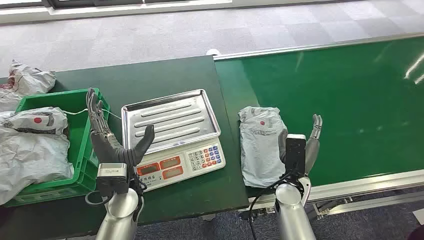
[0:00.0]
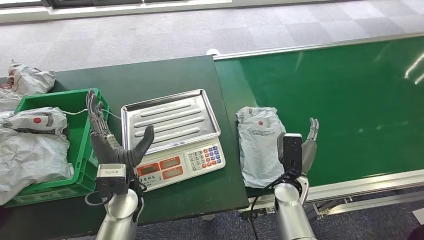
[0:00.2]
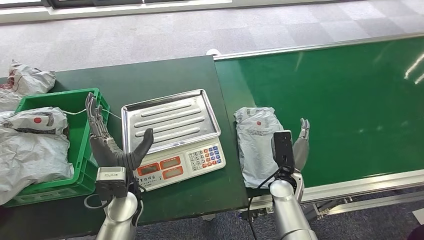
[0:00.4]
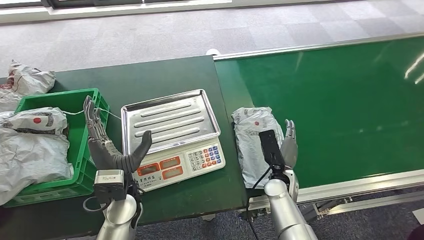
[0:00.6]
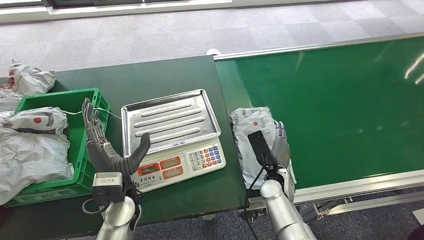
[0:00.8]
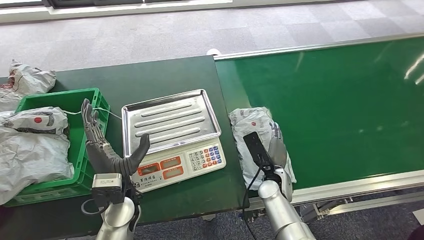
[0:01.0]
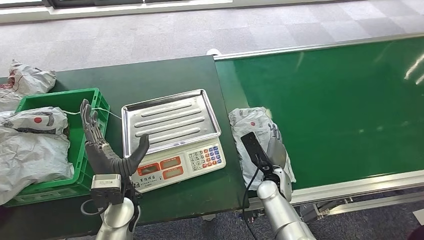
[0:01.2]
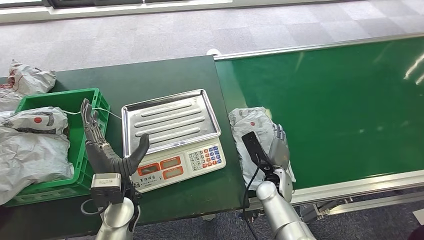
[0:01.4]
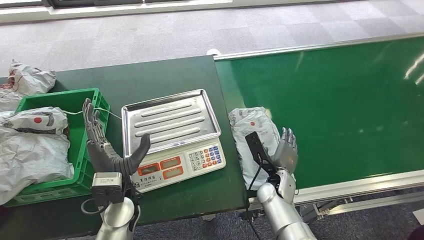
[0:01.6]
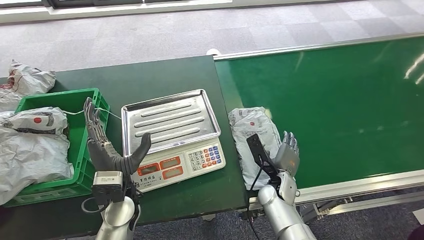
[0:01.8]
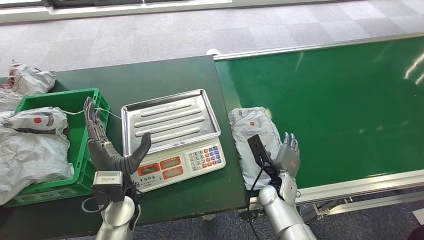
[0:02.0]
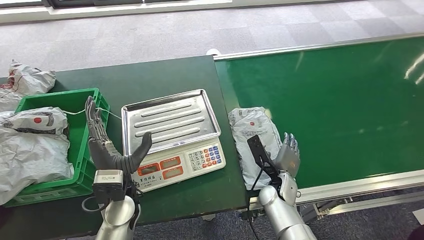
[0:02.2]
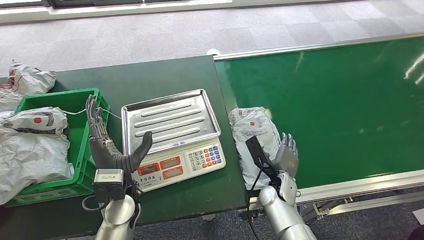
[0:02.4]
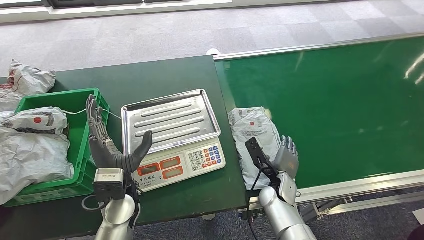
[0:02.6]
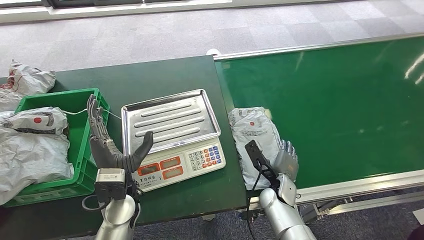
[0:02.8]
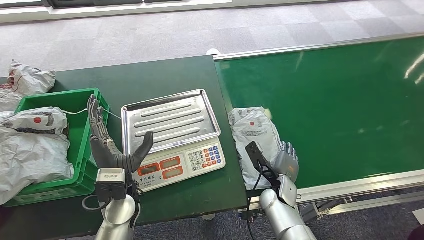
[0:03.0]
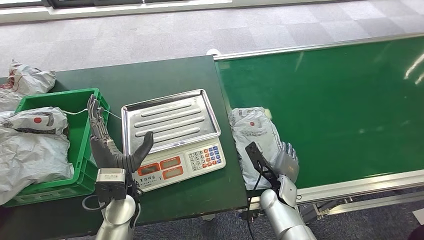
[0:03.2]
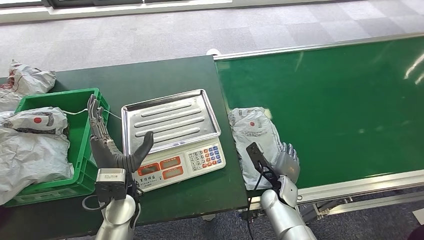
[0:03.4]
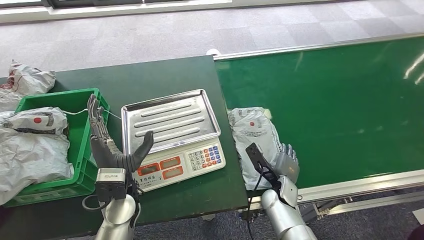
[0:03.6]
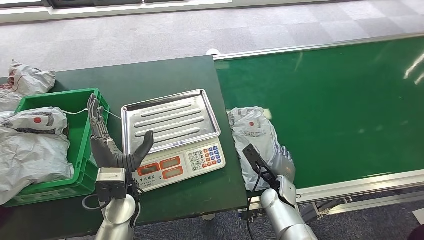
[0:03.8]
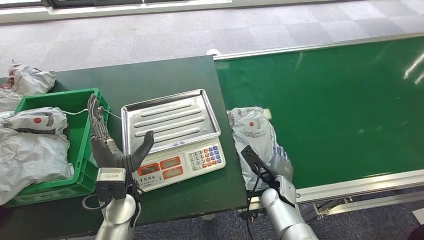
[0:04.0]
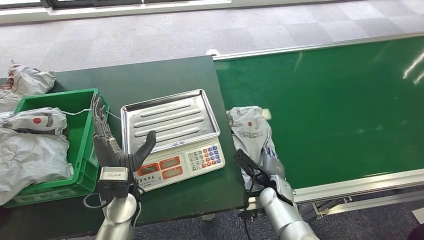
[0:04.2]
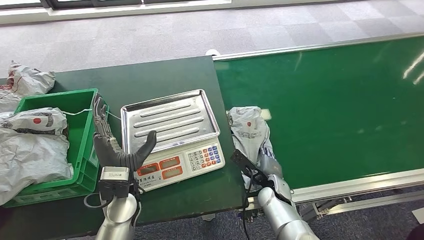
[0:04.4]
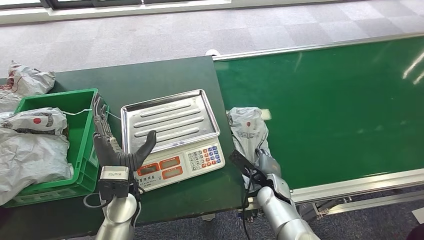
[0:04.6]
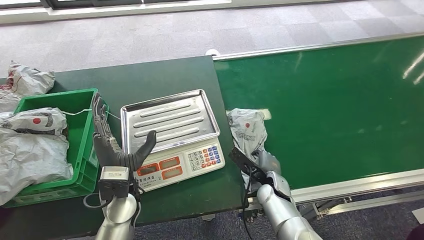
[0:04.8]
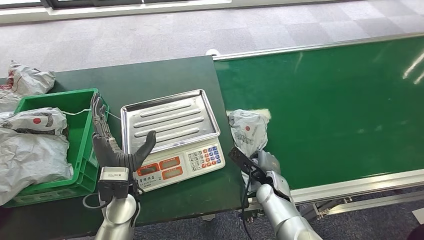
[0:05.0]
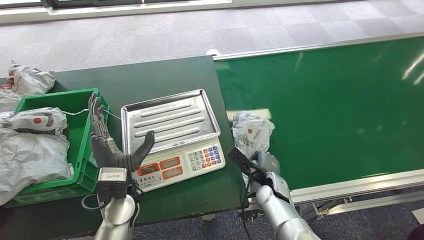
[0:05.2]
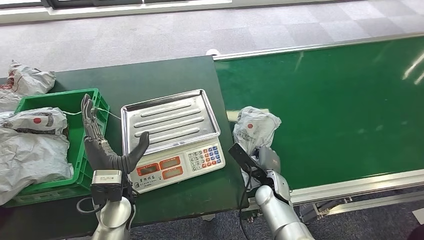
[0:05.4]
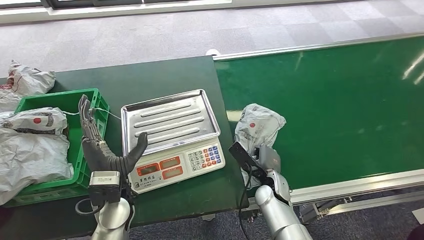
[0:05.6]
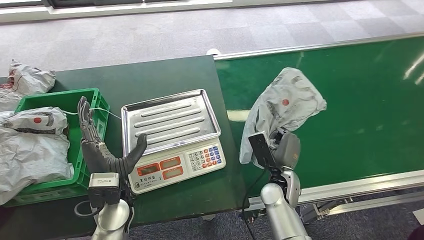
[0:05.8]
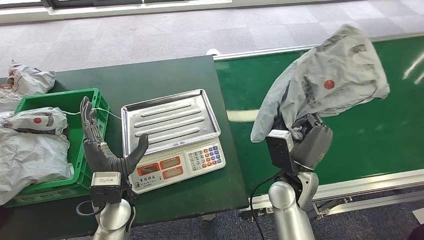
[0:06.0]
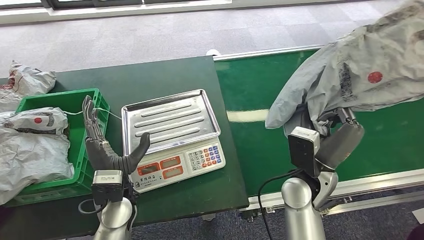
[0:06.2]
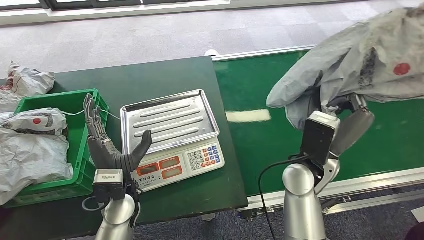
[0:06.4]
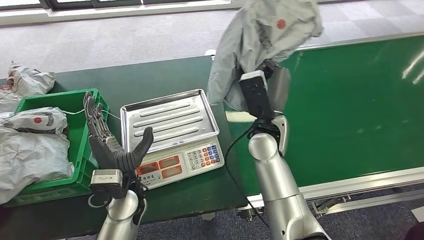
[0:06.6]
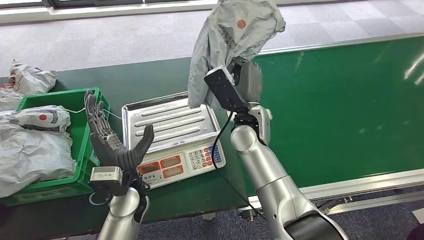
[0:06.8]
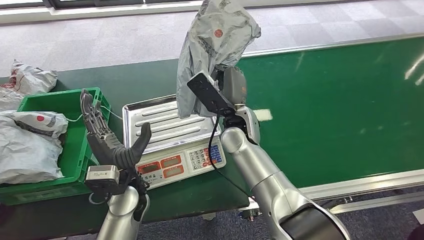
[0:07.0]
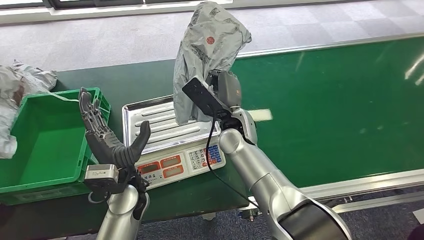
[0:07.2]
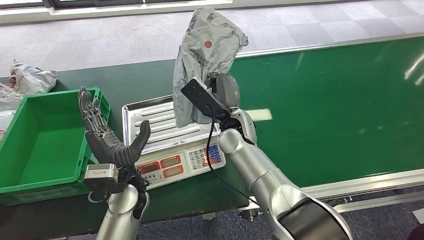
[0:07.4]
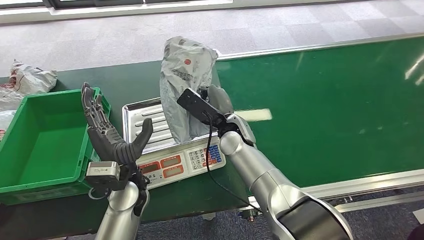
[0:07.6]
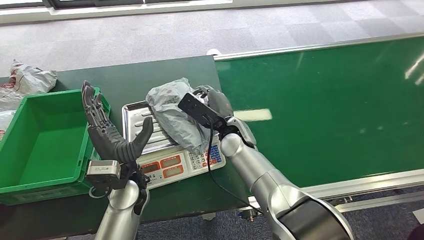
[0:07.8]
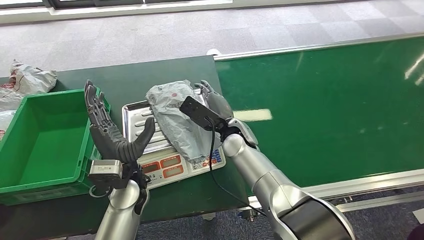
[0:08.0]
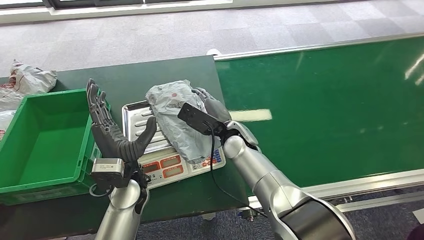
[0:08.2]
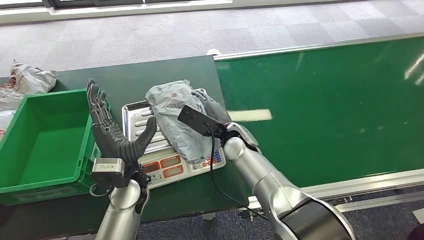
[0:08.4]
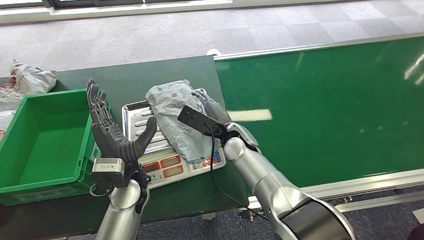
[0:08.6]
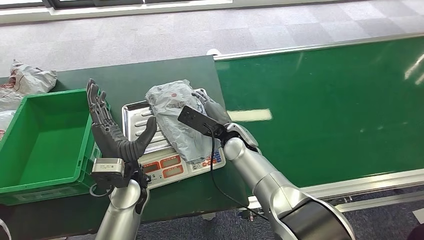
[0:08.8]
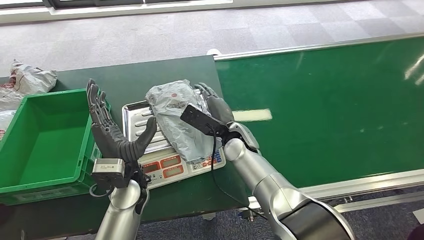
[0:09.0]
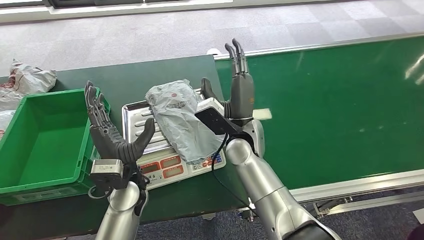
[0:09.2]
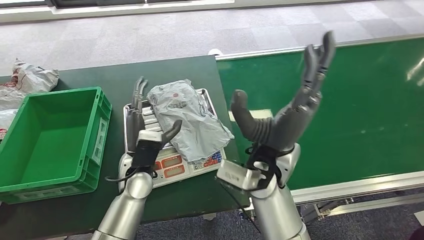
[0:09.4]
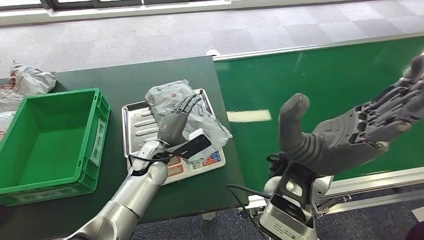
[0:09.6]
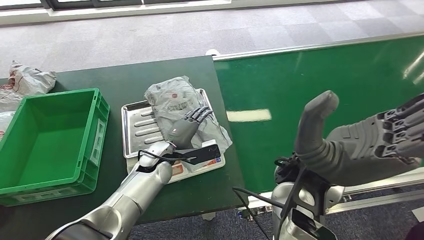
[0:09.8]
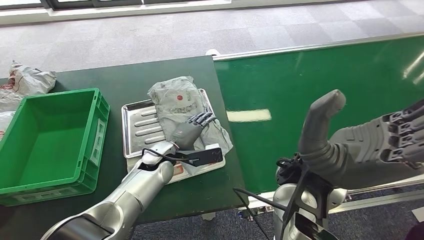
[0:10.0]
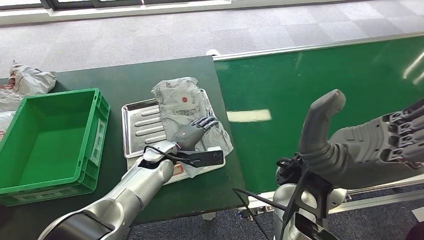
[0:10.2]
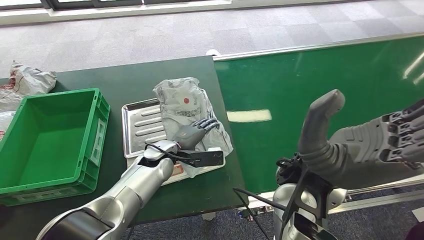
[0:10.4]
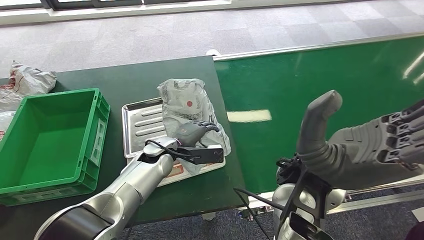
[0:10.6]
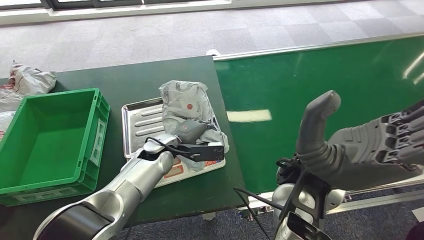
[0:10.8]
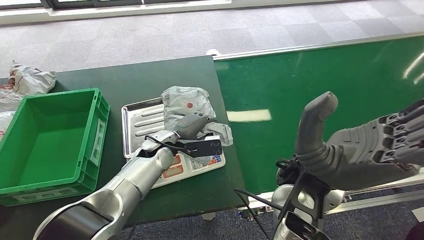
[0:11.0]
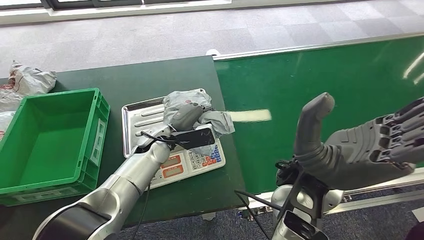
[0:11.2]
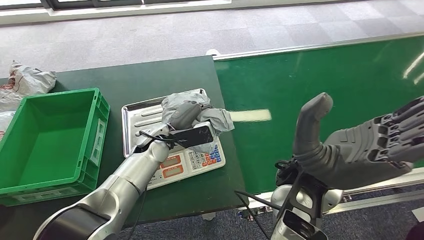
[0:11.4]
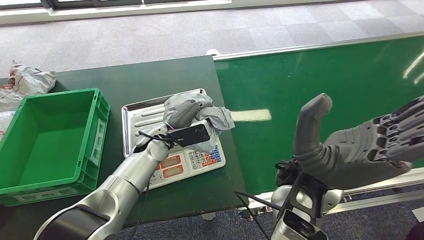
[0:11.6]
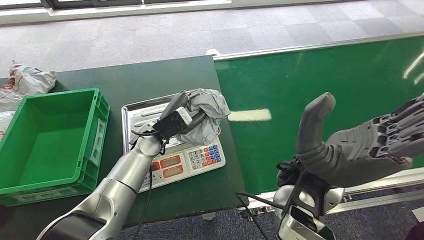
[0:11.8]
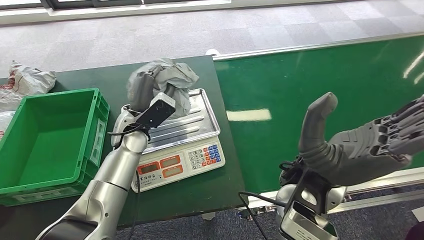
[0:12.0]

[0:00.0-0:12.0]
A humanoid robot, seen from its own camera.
Step, 0:00.0 to 0:06.8: Pick up the package from the conveyor belt.
Step, 0:07.0 to 0:09.2: Place the package onto the inbound machine.
Step, 0:09.6 to 0:12.0: Pick up the package from the inbound machine.
0:01.6 to 0:03.0: The hands make only small movements.
0:04.4 to 0:06.0: The right hand heads upward, covering roughly 15 cm.
0:07.6 to 0:09.0: The hands move only a little.
0:10.4 to 0:12.0: The left hand goes roughly 10 cm upward.

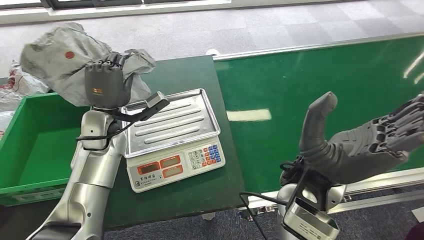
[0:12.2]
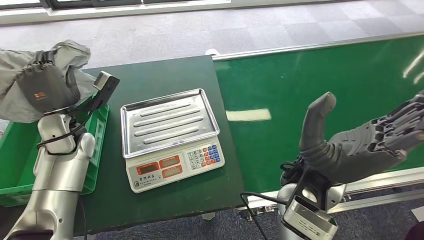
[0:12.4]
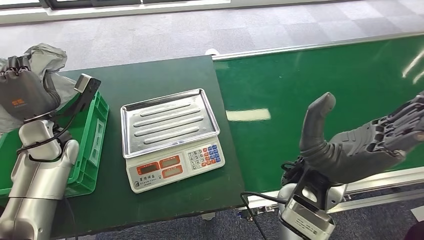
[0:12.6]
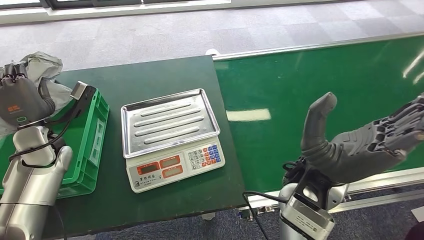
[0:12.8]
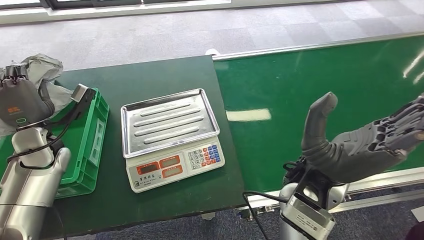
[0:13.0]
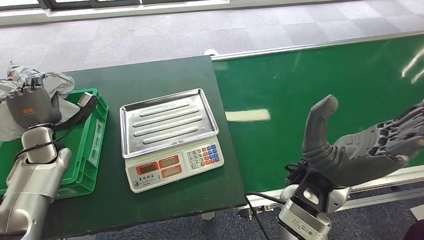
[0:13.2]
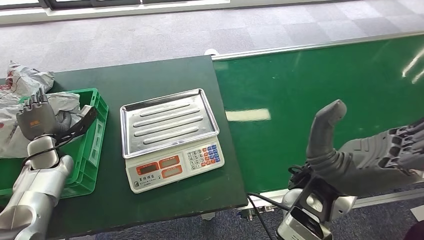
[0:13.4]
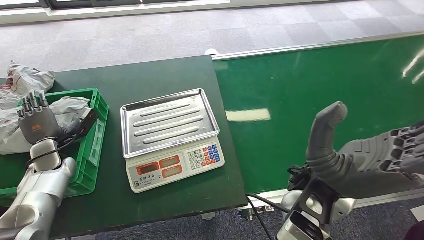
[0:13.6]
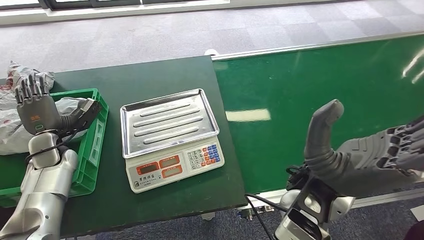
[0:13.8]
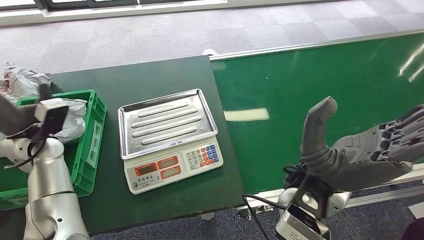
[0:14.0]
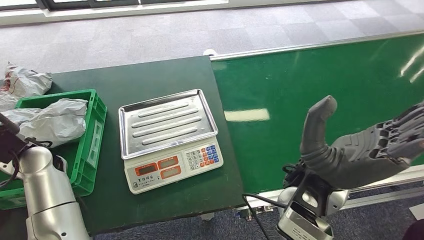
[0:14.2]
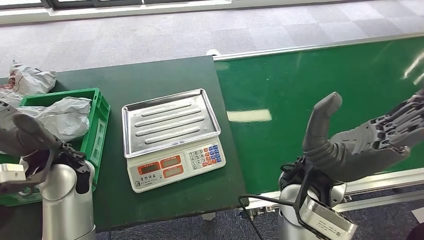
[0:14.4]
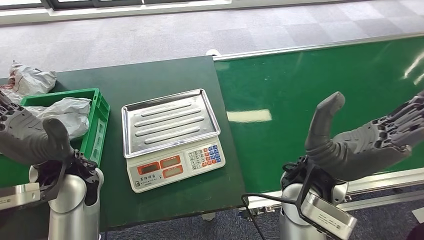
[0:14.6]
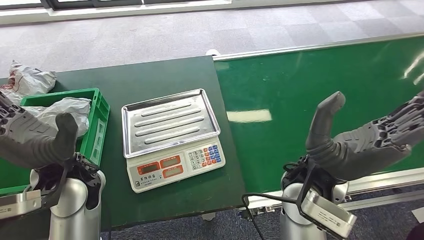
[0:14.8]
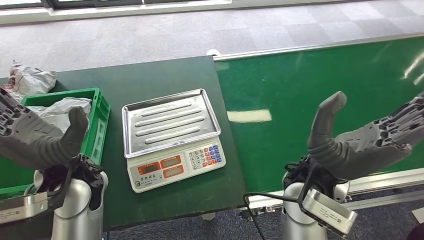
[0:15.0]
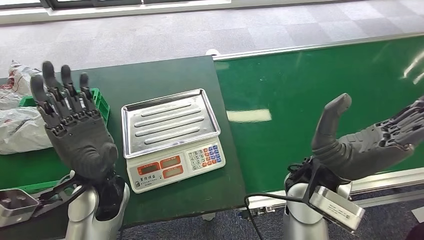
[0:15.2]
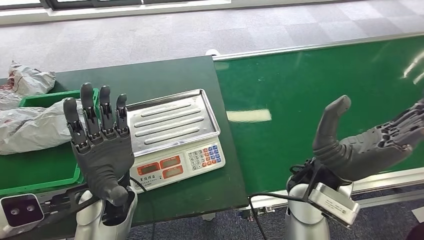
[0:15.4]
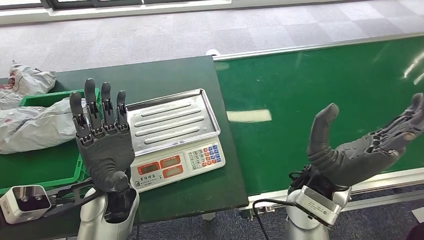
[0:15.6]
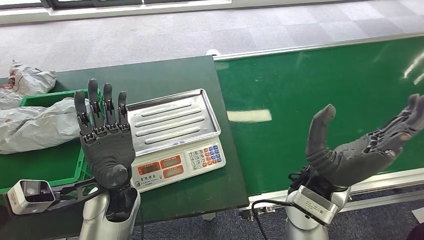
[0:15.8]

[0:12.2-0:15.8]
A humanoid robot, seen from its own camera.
Step, 0:12.2 to 0:15.8: Place the package into the parcel locker.

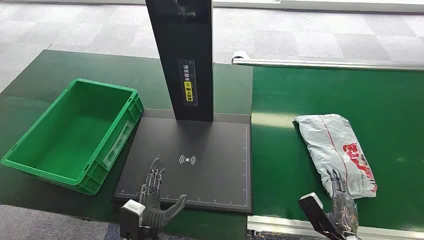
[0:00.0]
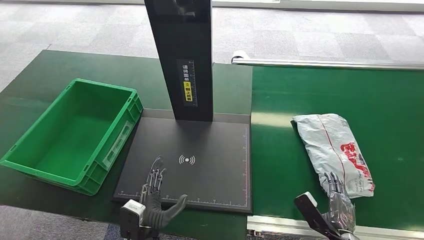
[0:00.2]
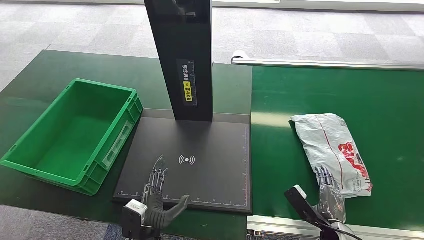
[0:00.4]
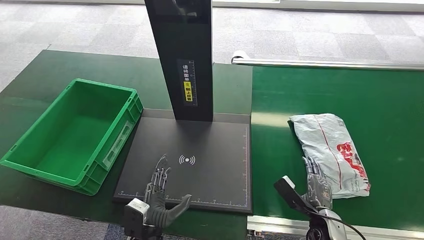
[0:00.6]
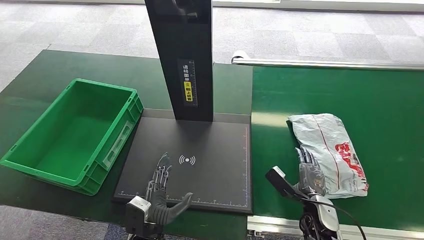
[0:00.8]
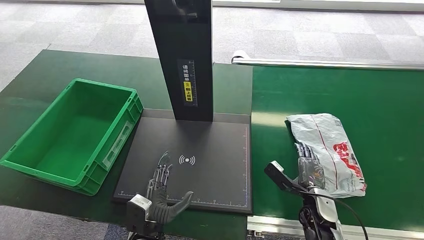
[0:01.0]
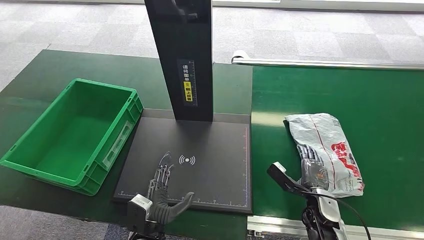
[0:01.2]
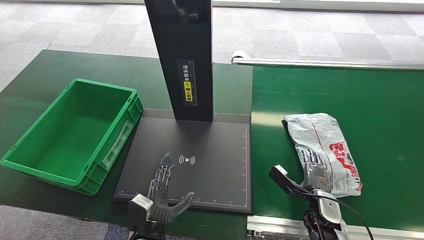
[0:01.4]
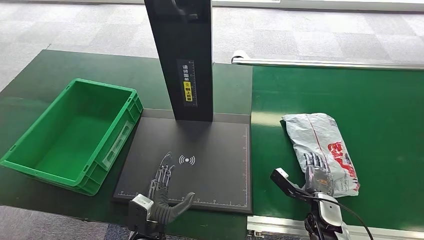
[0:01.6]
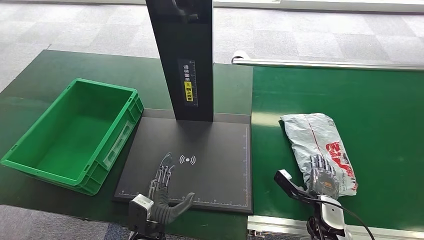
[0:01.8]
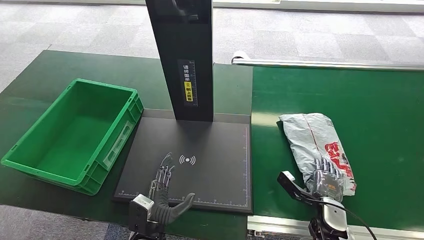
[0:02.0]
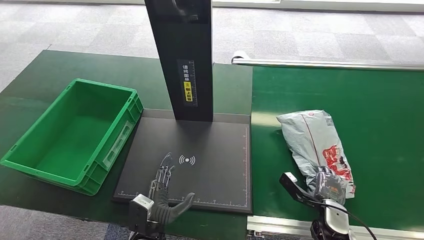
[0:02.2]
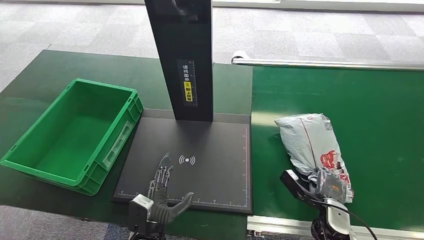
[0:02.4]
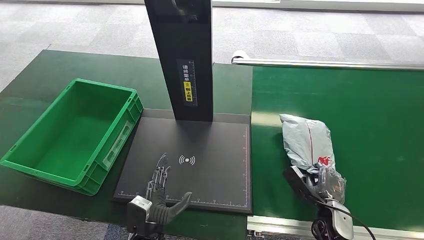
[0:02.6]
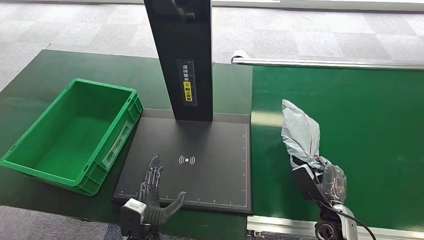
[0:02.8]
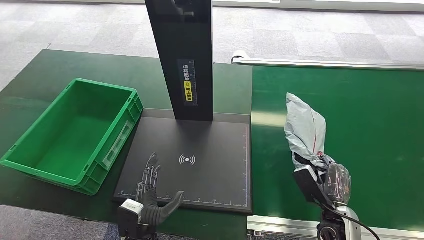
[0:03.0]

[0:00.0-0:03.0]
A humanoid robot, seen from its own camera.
0:01.6 to 0:03.0: The right hand moves upward, some 5 cm.
